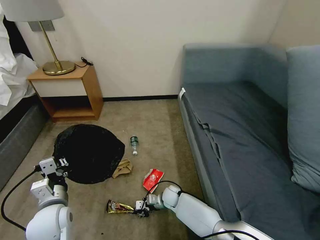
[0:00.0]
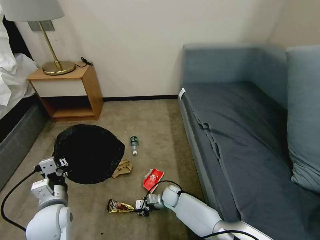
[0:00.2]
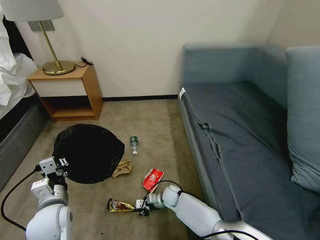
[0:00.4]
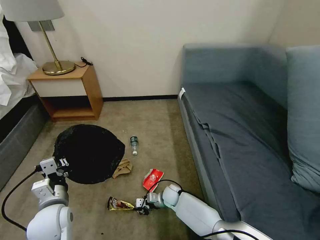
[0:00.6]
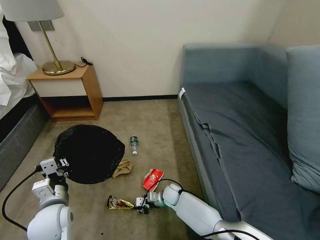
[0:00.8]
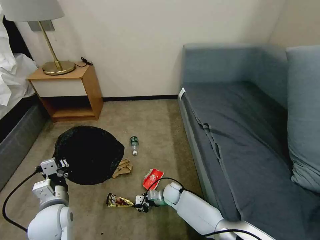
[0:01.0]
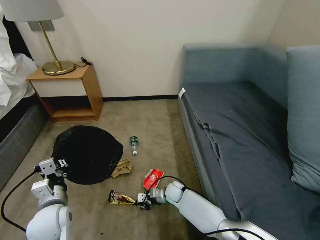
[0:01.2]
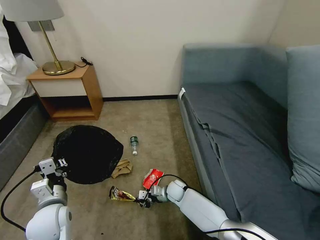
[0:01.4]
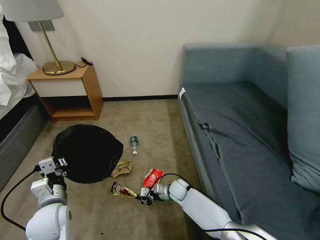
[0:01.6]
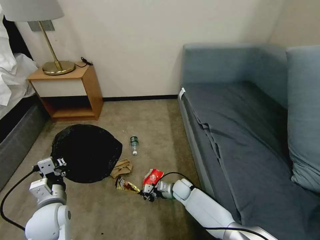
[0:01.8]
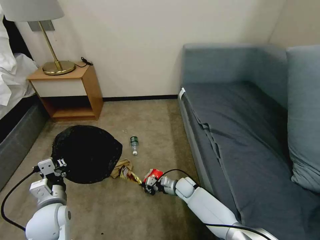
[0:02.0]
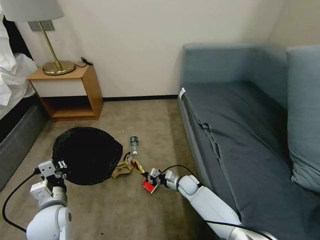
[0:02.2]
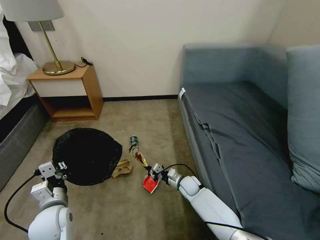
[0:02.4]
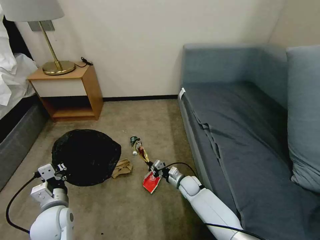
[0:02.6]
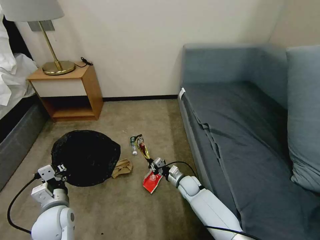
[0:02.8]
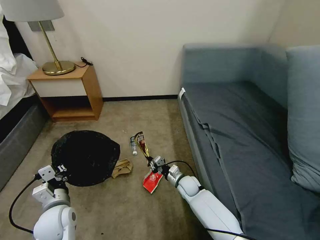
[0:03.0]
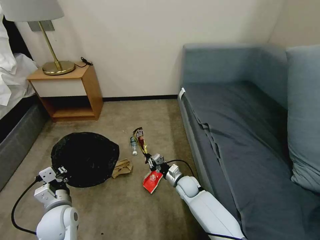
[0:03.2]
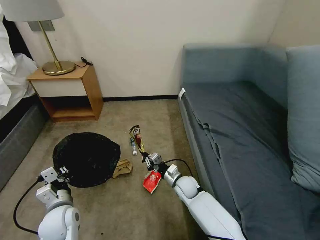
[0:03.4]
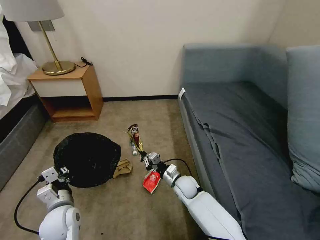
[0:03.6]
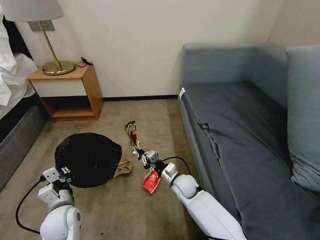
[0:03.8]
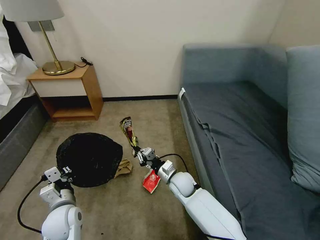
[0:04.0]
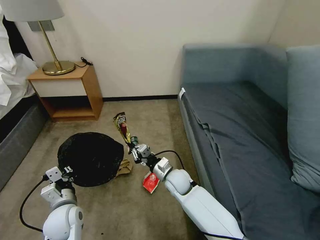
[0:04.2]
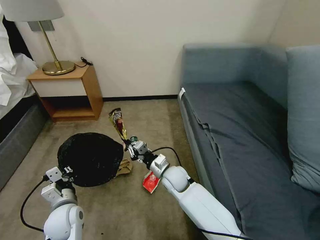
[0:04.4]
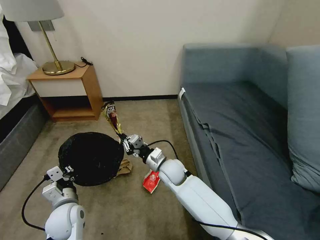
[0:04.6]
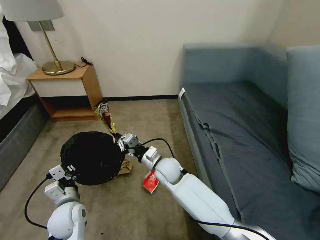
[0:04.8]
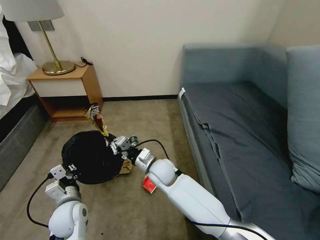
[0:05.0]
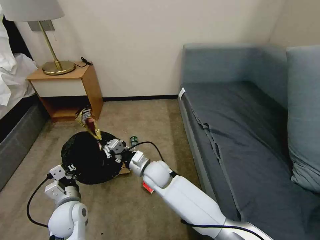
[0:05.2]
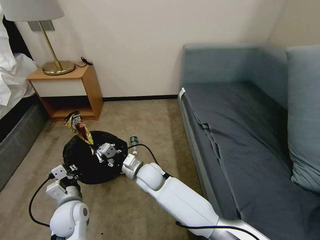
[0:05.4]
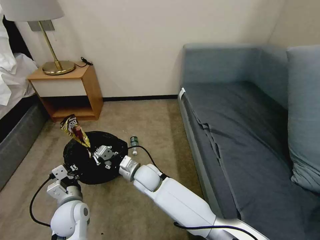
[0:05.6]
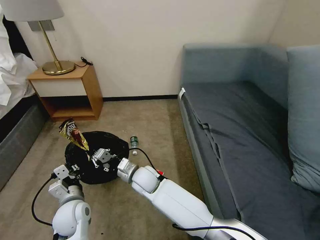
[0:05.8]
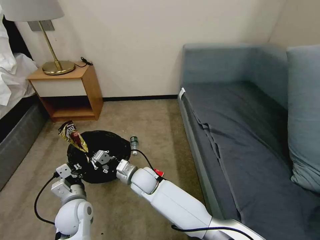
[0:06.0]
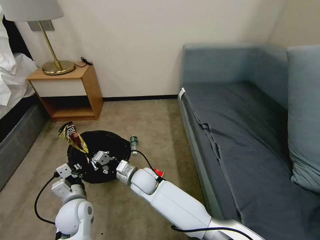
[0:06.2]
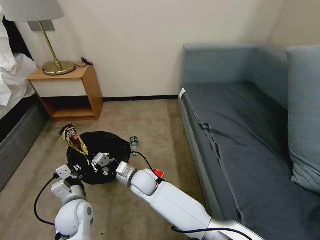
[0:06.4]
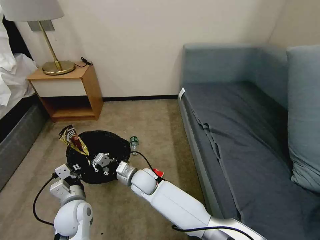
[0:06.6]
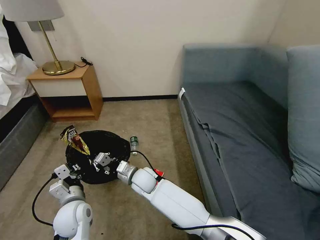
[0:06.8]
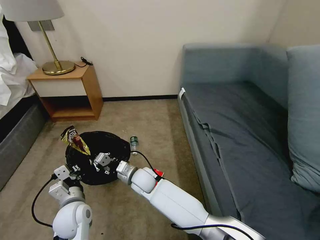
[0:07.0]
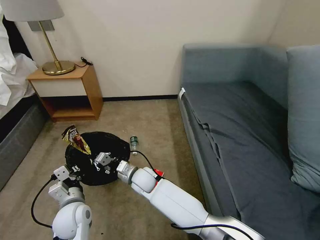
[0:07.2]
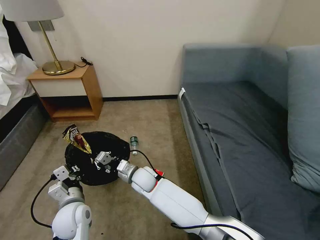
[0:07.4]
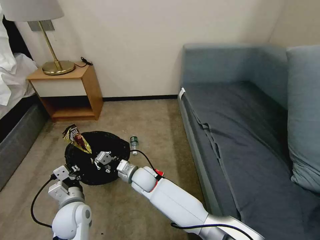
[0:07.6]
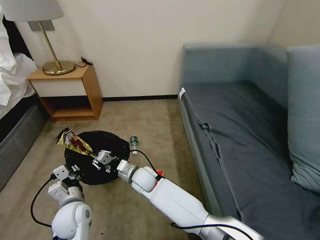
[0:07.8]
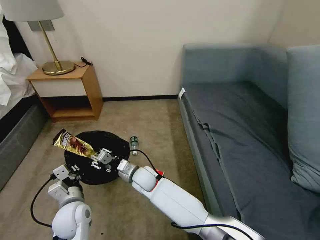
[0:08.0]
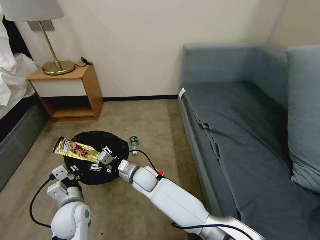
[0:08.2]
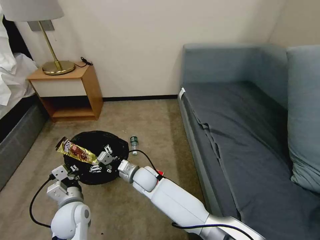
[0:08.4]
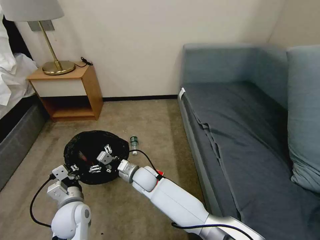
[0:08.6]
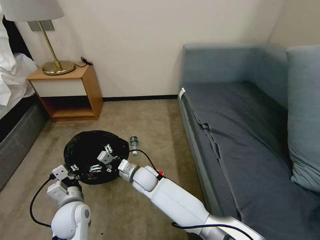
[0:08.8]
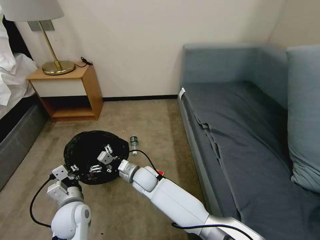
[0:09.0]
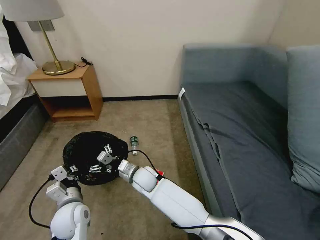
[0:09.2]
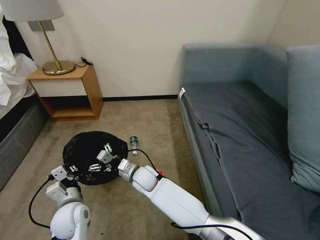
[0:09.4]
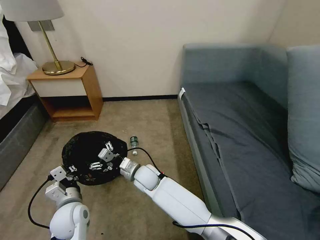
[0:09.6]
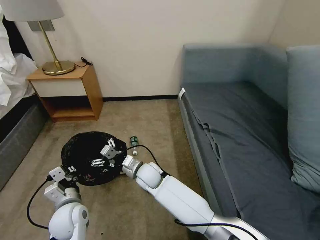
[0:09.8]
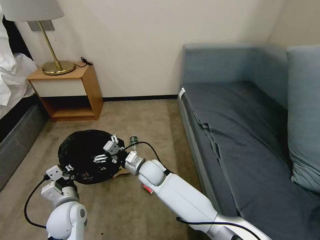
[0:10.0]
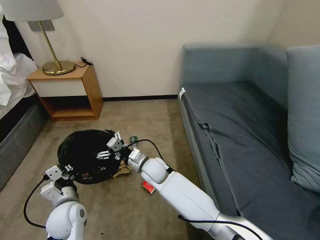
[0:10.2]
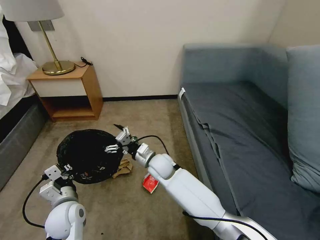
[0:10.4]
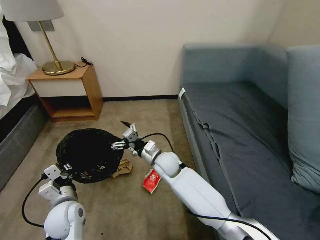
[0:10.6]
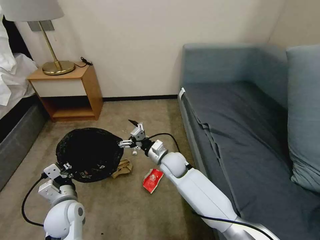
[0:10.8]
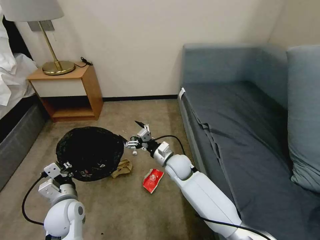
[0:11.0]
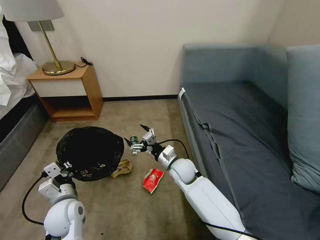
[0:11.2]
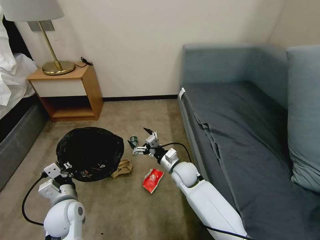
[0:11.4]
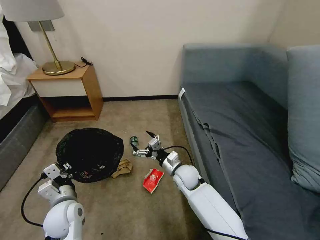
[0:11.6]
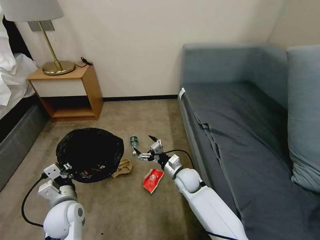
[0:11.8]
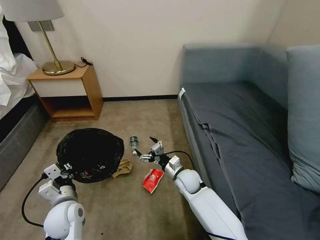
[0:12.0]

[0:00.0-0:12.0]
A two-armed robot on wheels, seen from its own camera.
Task of the whole recording: Pick up the trash bin, then pick up the garbage on the floor and place it into the trash bin.
0:00.0 to 0:01.6: There are only small adjustments of the grippers.
0:01.6 to 0:03.0: The right gripper moves about 5 cm.
0:03.0 to 0:04.4: The right gripper moves upward and to the left, roughly 15 cm.
0:04.4 to 0:06.0: The right gripper heads to the left, covering roughly 10 cm.
0:06.0 to 0:07.6: The grippers make only small movements.
0:07.6 to 0:09.0: The right gripper opens up.
0:09.0 to 0:10.4: The right gripper goes about 5 cm to the right.
0:10.4 to 0:12.0: The right gripper heads to the right and downward, covering some 15 cm.

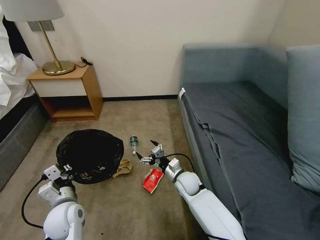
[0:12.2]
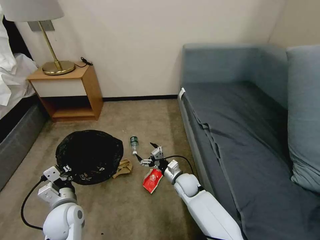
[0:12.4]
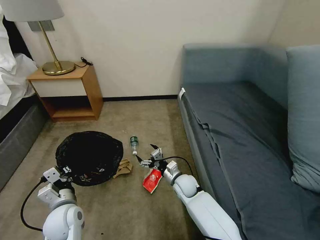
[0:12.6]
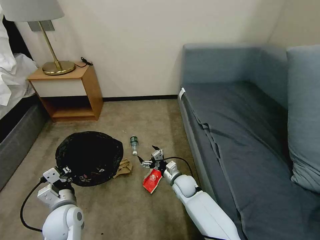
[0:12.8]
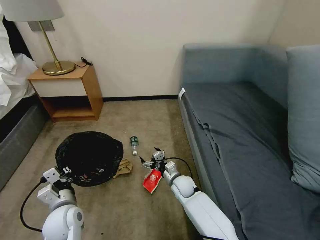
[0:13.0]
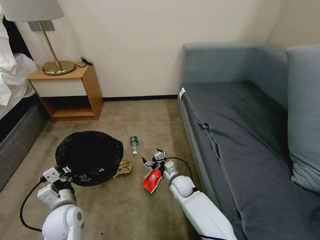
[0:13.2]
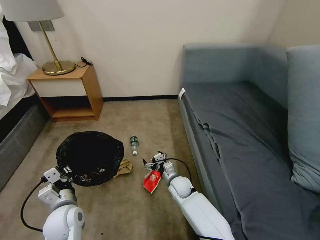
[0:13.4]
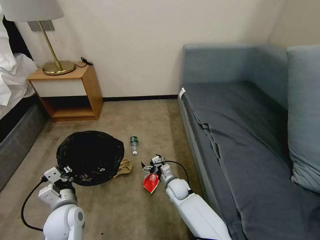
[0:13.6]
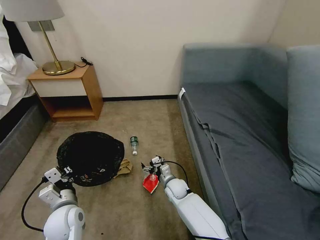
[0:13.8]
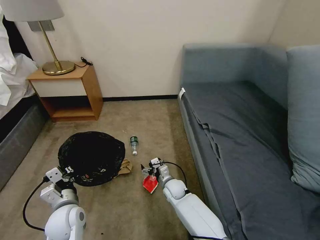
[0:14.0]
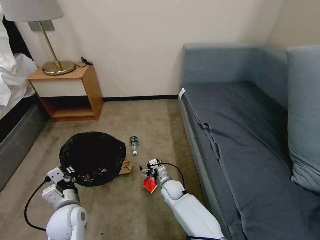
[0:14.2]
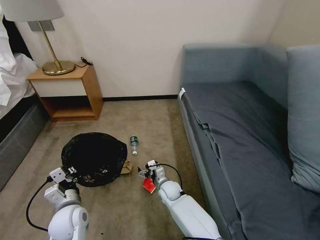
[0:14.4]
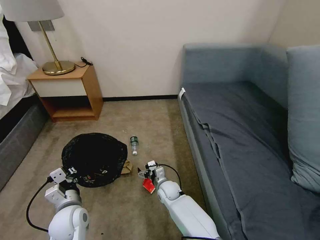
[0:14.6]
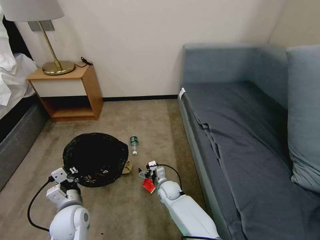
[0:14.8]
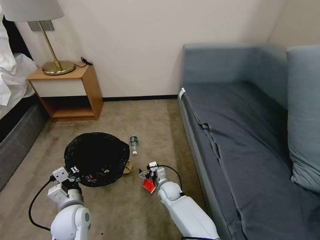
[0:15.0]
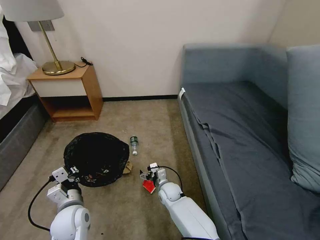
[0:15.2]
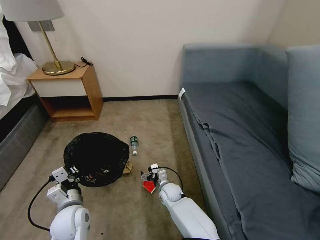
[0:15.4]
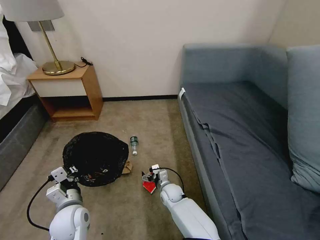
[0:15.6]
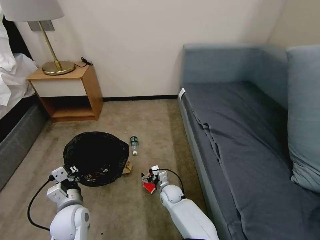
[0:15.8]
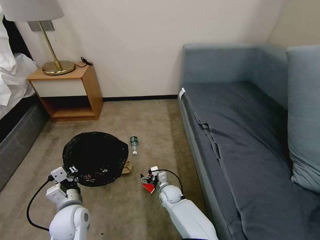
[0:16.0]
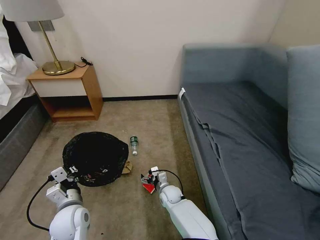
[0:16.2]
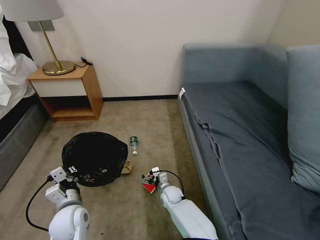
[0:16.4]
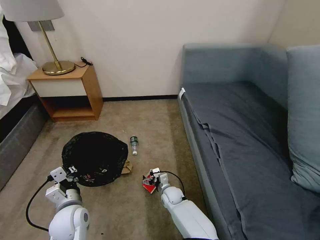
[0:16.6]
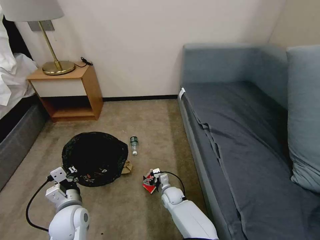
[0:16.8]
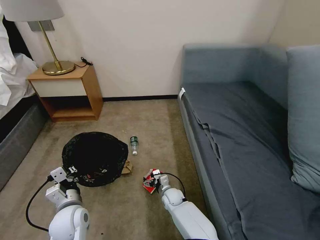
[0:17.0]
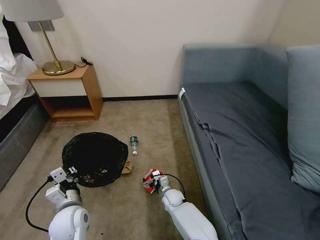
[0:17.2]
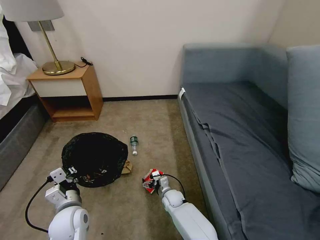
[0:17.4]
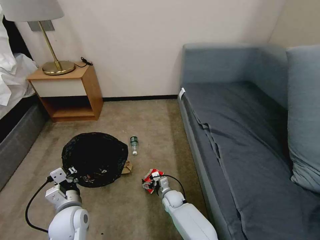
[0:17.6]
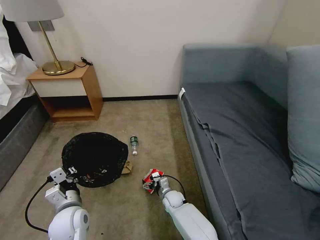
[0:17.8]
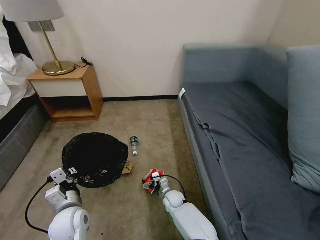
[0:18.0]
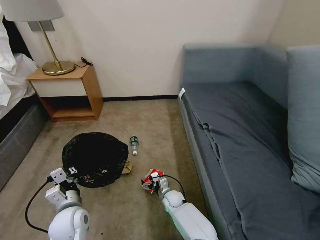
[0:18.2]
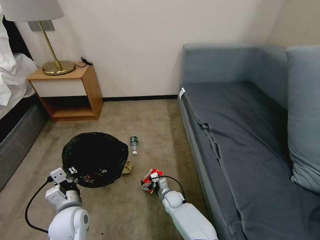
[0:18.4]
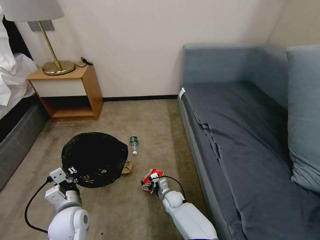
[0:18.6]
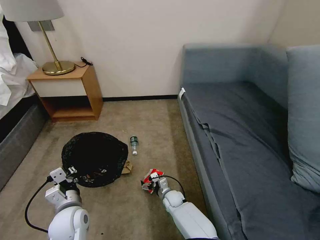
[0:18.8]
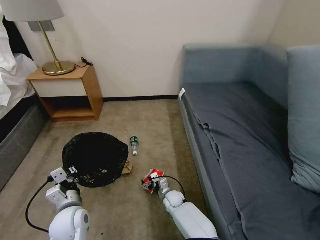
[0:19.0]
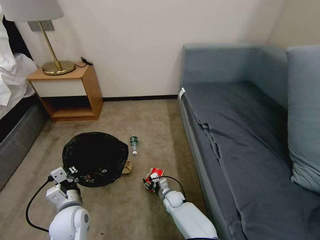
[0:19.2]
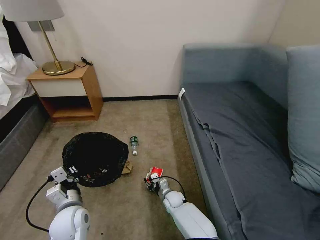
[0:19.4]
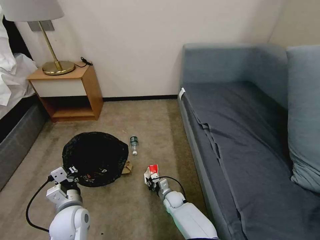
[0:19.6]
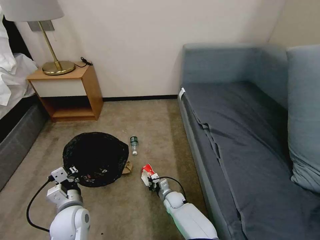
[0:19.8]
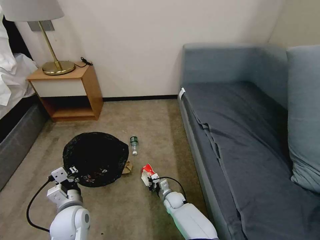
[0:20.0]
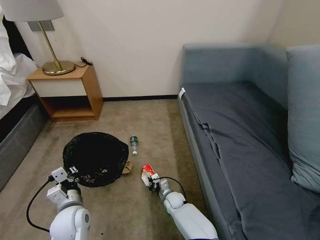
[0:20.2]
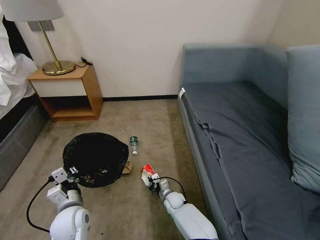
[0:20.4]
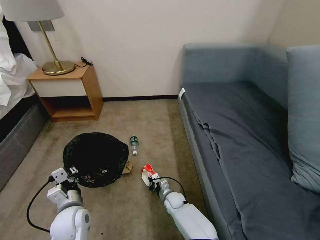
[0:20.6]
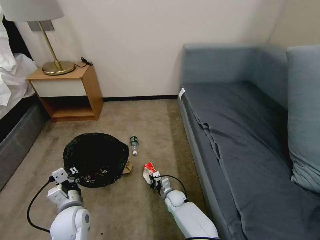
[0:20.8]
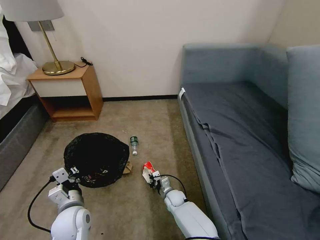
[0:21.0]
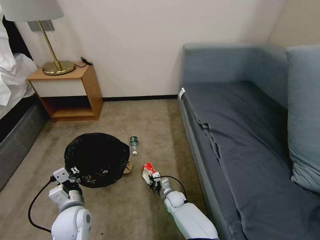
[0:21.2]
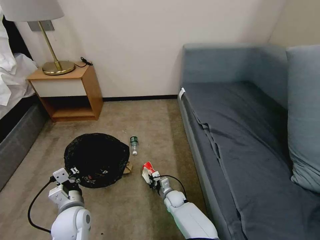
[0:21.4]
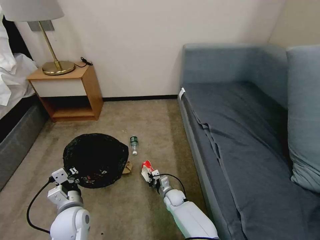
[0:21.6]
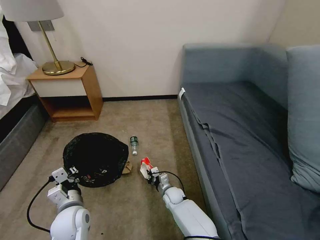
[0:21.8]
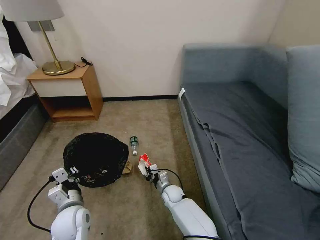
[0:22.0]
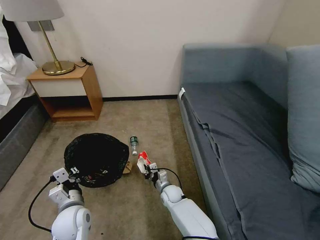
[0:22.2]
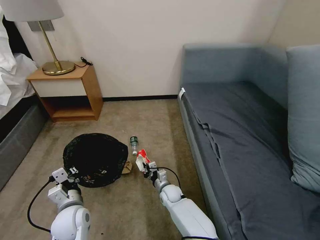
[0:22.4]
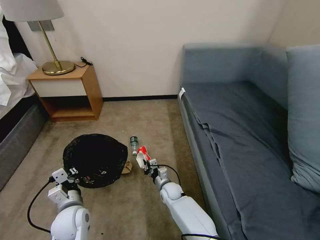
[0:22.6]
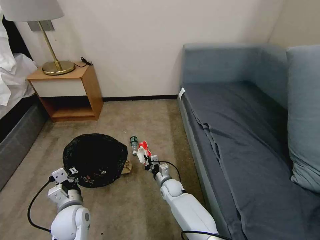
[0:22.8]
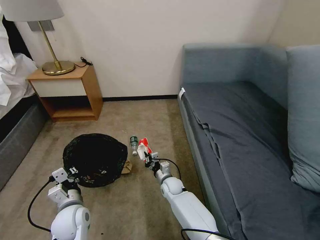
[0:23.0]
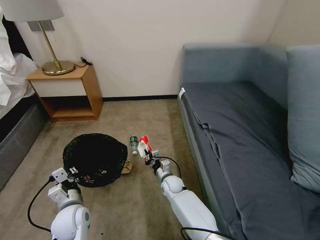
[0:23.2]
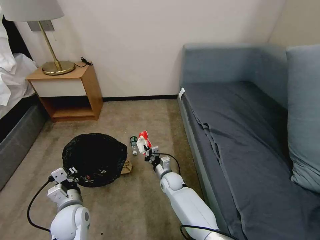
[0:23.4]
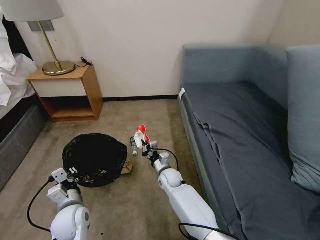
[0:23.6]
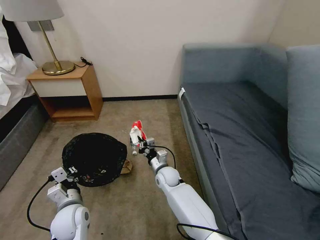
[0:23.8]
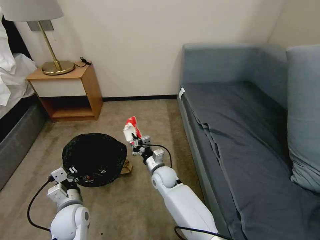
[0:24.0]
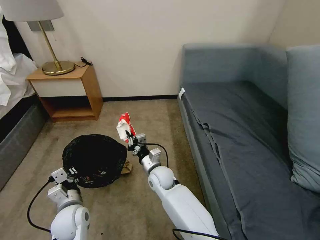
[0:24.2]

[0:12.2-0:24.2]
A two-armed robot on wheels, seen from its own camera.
Task of the whole recording: Pick up the trash bin, then pick up the garbage on the floor and place it into the trash bin.
0:12.2 to 0:13.8: The right gripper heads downward, covering approximately 5 cm.
0:13.8 to 0:16.6: There are only small adjustments of the grippers.
0:16.6 to 0:18.2: There are only small adjustments of the grippers.
0:18.2 to 0:19.8: The right gripper closes up.
0:19.8 to 0:21.2: The two grippers keep their place.
0:21.2 to 0:22.6: The right gripper moves upward, some 5 cm.
0:22.6 to 0:24.2: The right gripper travels upward by approximately 15 cm.
